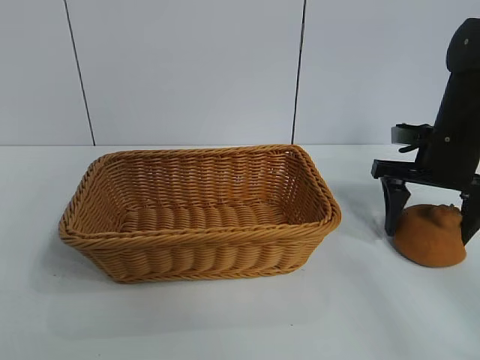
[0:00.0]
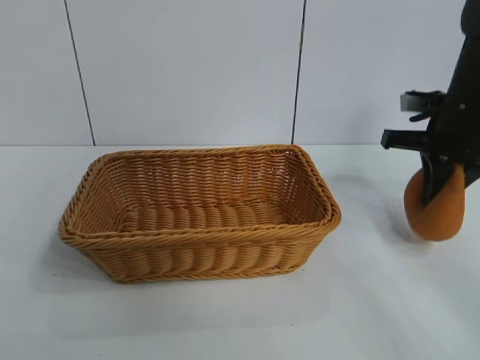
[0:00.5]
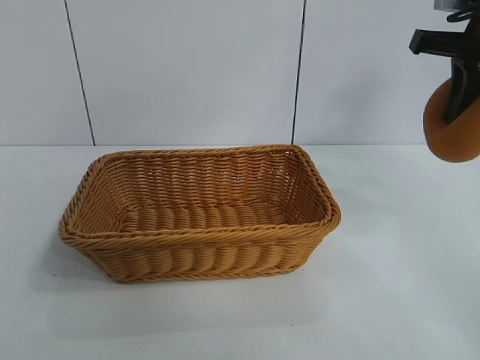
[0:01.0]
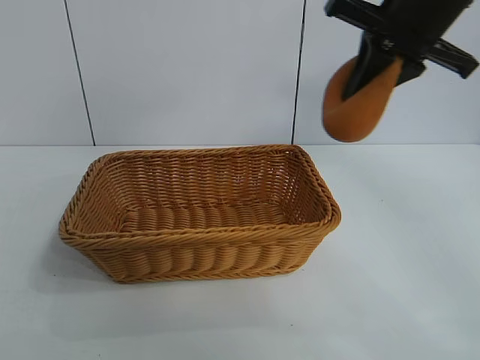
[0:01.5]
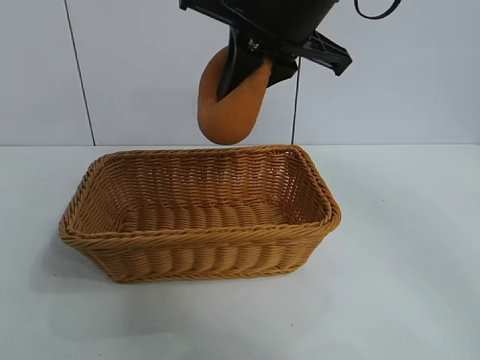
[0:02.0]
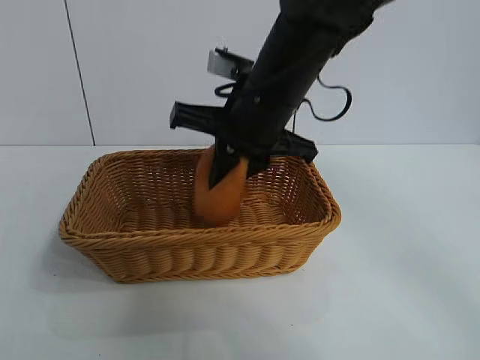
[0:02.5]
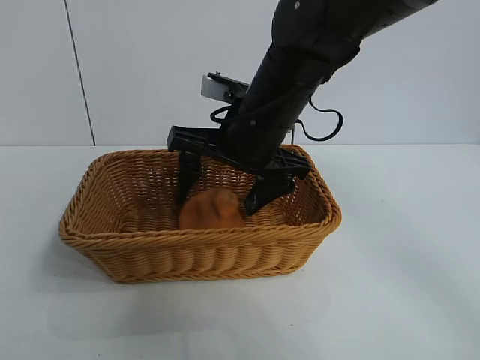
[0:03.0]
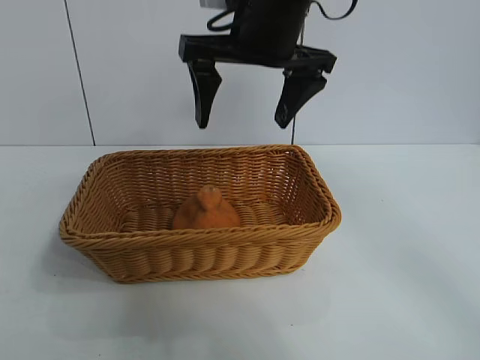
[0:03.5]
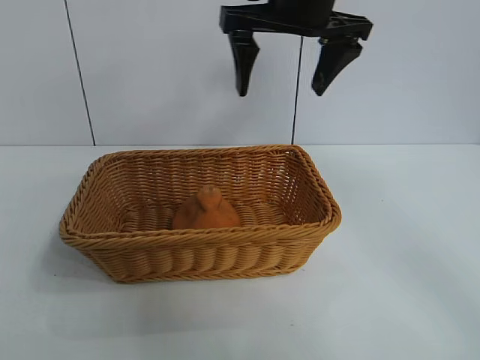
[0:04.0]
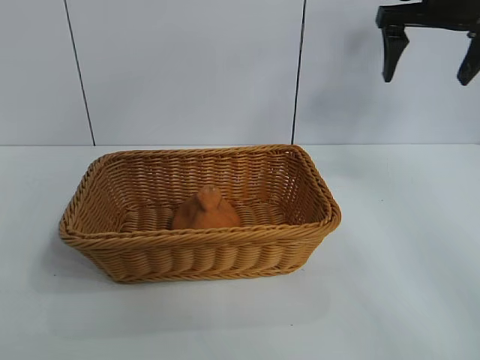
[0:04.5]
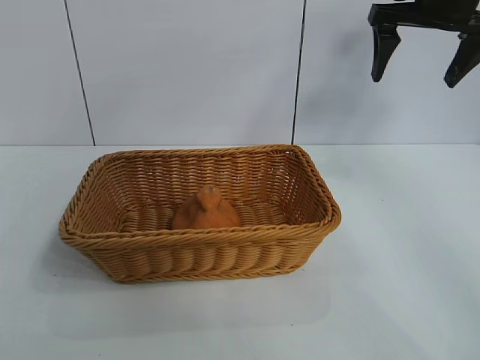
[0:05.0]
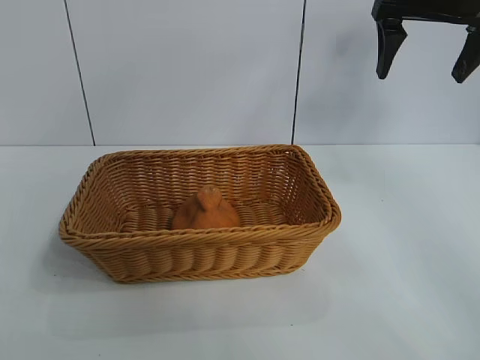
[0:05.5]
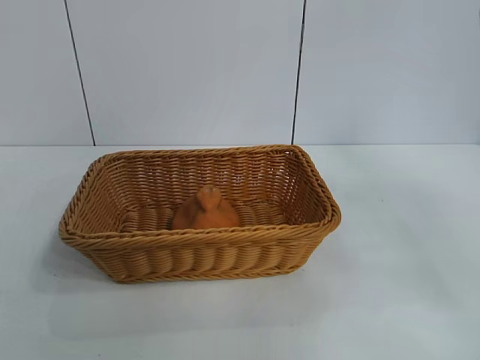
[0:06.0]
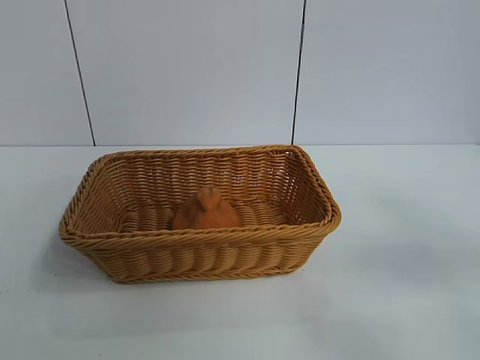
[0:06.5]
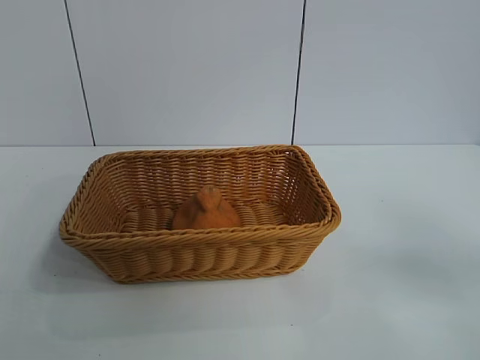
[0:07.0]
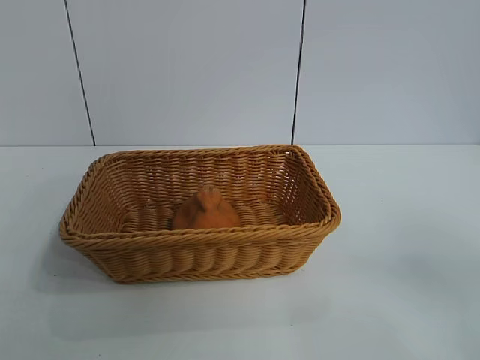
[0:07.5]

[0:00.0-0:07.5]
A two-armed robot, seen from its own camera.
Task of the whole recording: pick up the orange and put it into the basket.
Step, 0:00.5 to 0:03.0: Place the orange in the basket with right gripper.
